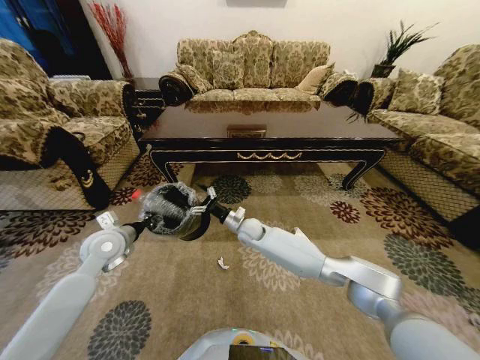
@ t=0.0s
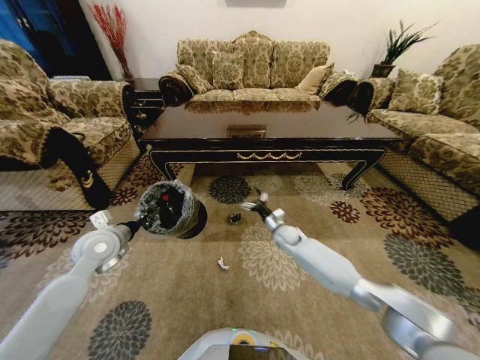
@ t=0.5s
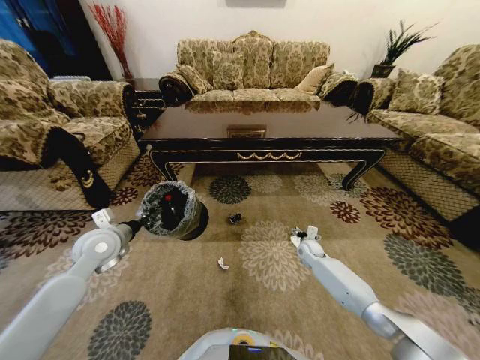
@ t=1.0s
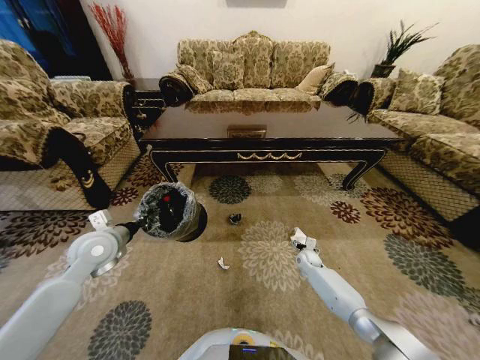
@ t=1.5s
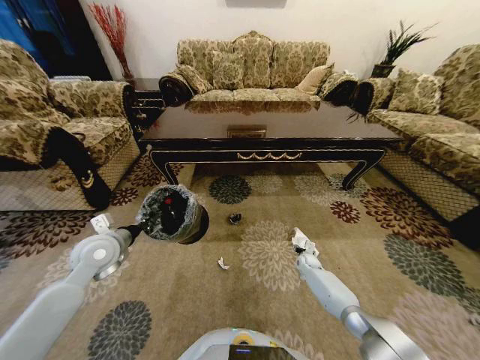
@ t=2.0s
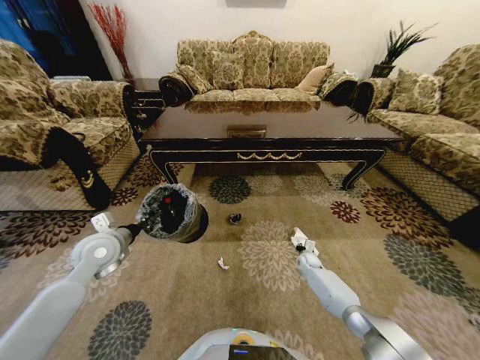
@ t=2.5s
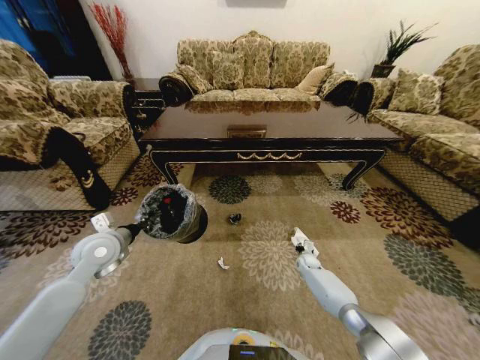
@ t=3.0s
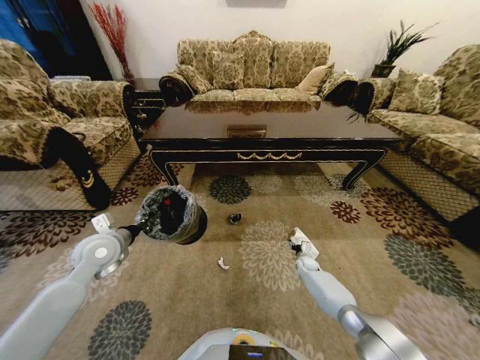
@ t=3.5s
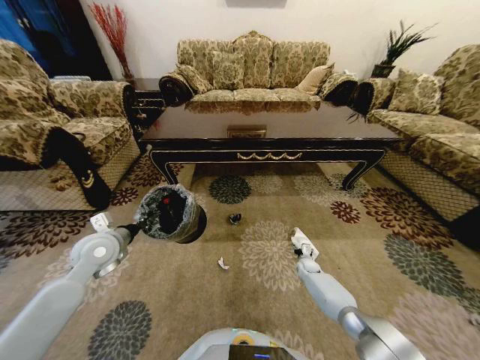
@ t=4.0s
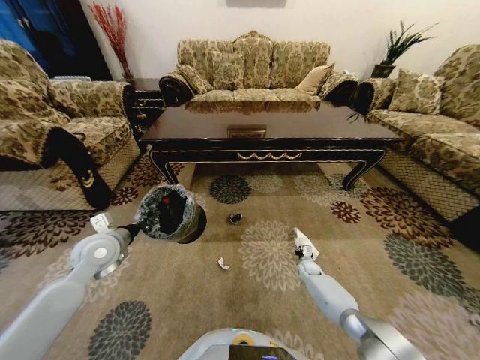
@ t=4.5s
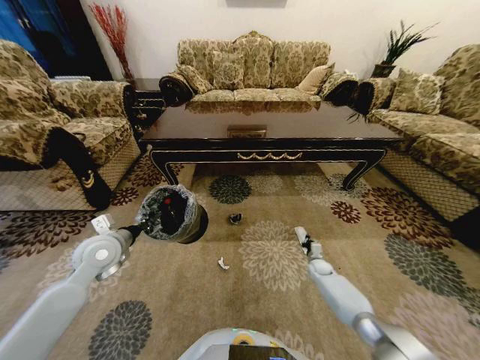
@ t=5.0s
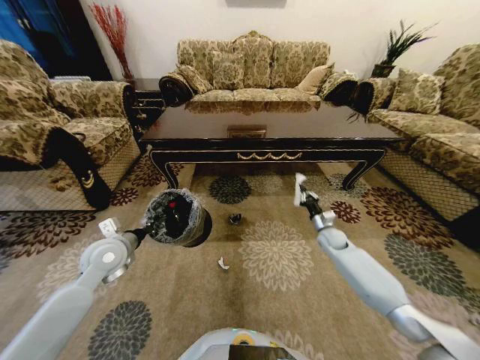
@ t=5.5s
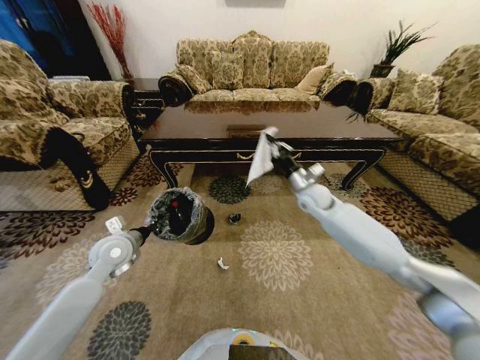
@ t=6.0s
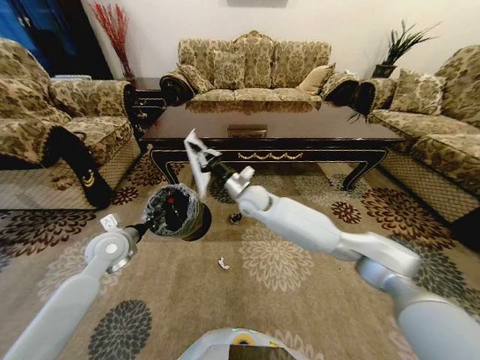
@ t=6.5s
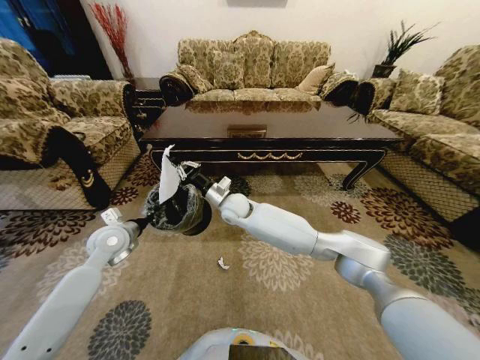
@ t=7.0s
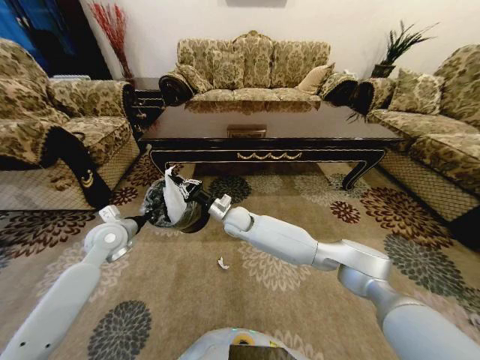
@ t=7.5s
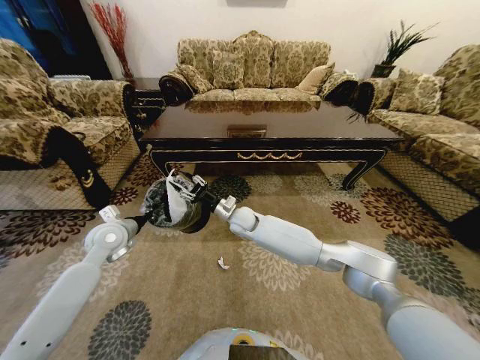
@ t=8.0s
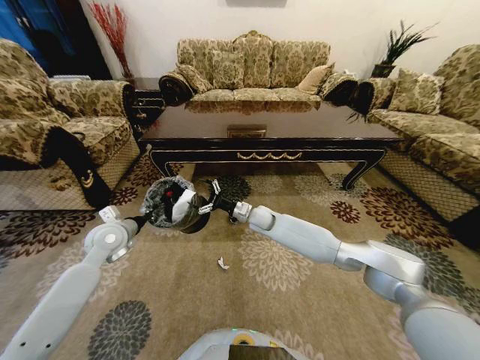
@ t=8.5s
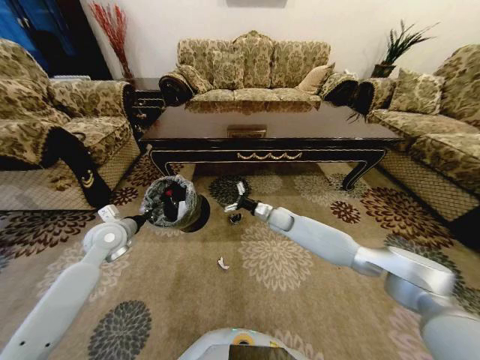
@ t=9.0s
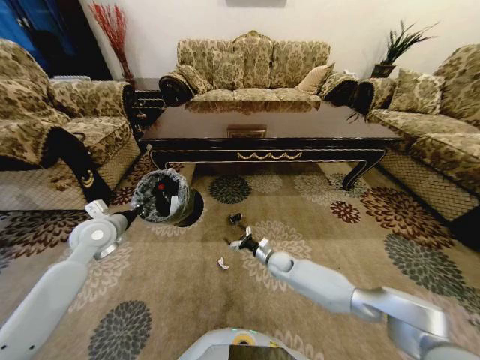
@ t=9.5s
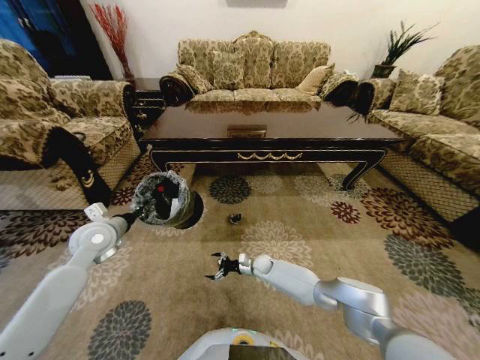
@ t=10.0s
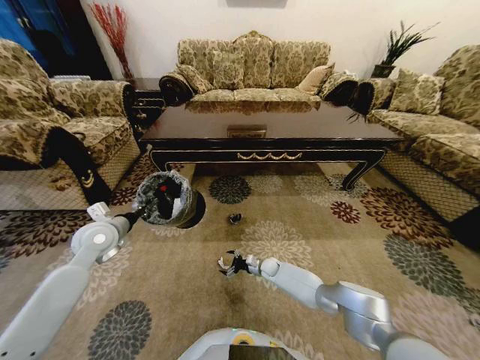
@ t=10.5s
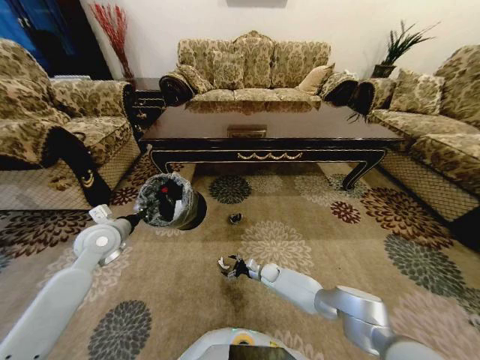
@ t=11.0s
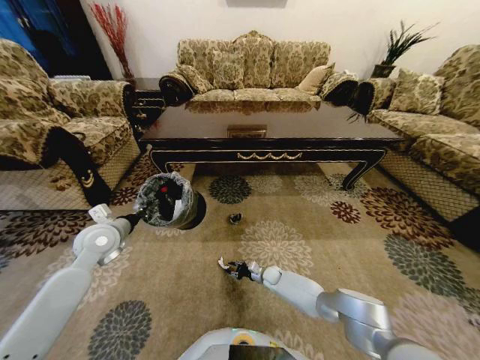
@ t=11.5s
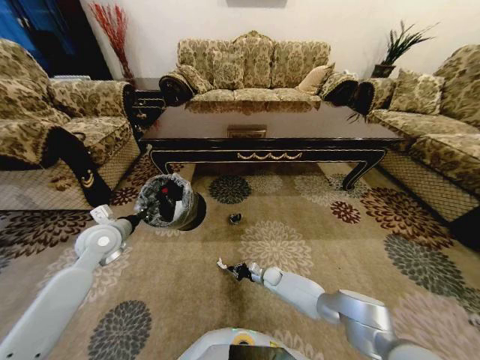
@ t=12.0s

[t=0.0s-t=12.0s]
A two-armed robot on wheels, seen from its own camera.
Task of the whole recording: Move to the front of the table and pick up the trash from the floor, then place it into the trash bin.
t=0.0s to t=2.0s: The right gripper shifts roughly 35 cm to the right and downward.
t=2.0s to t=4.0s: The right gripper closes, then opens again.
t=4.0s to t=6.0s: The right gripper heads upward, covering roughly 40 cm, and closes its fingers.
t=6.0s to t=8.0s: The right gripper heads to the left, covering approximately 25 cm, and opens.
t=8.0s to t=10.0s: The right gripper shifts roughly 25 cm downward, and opens.
t=10.0s to t=12.0s: The right gripper travels downward and to the right by about 10 cm, and closes its fingers.

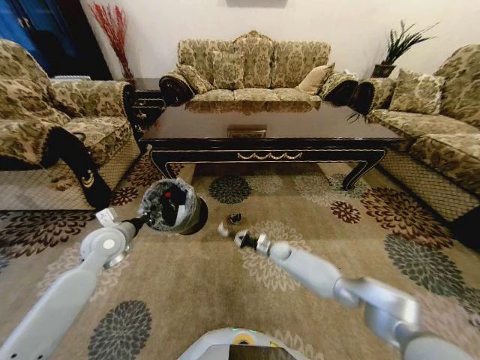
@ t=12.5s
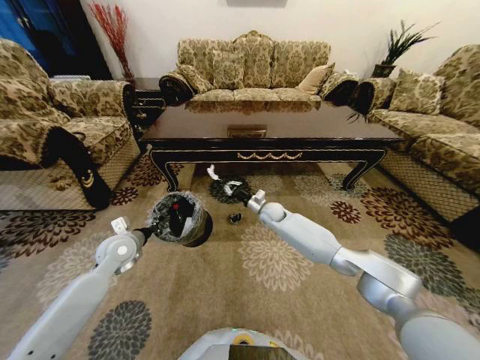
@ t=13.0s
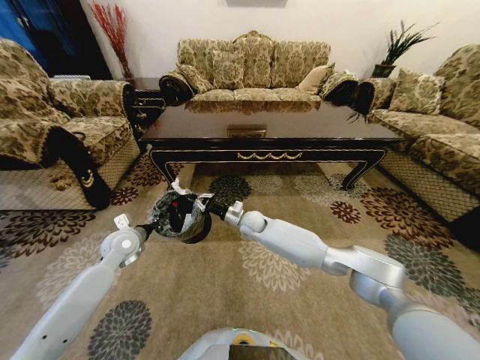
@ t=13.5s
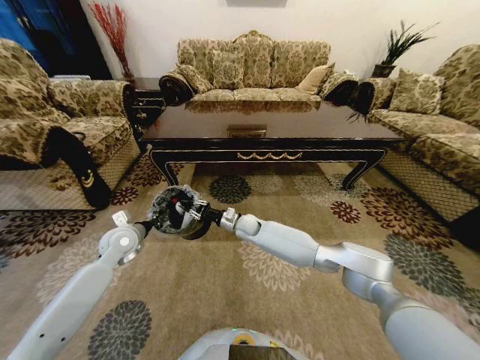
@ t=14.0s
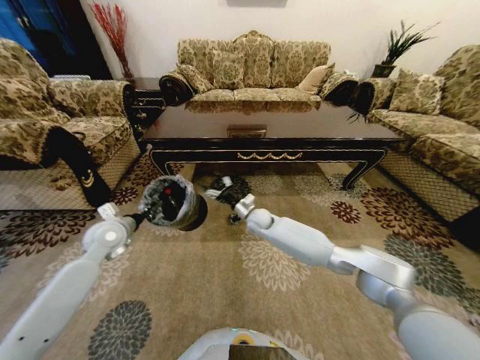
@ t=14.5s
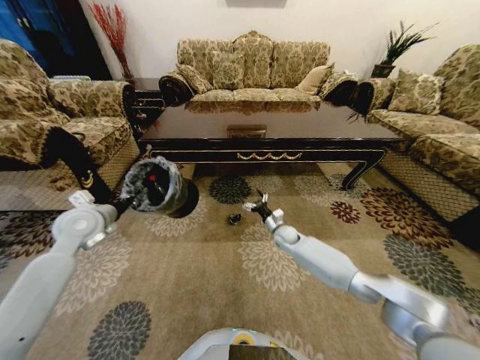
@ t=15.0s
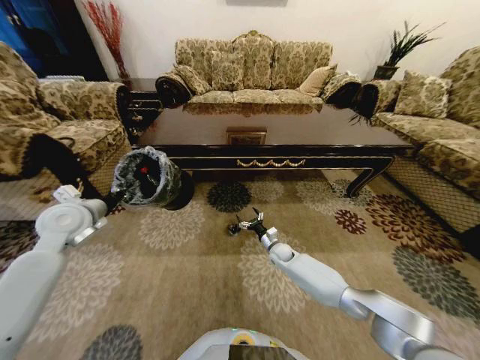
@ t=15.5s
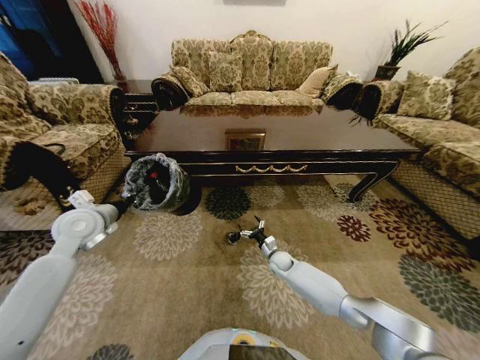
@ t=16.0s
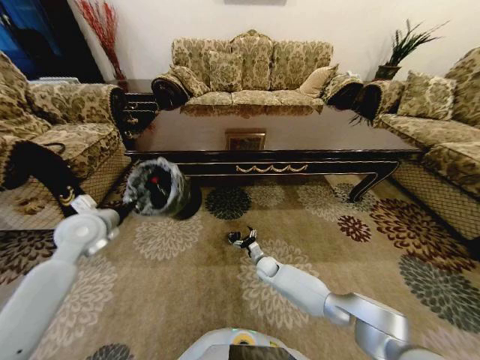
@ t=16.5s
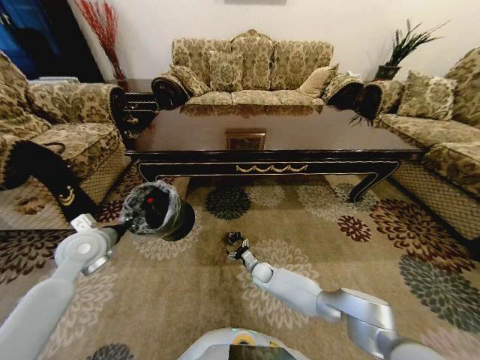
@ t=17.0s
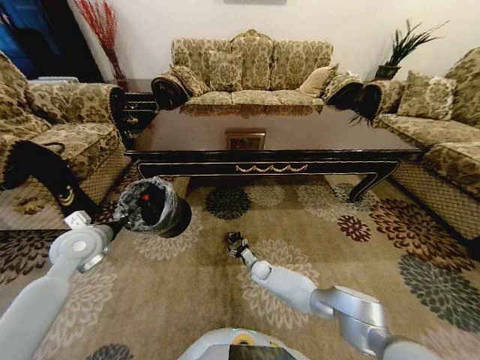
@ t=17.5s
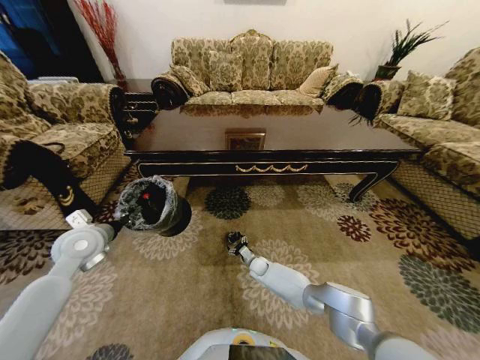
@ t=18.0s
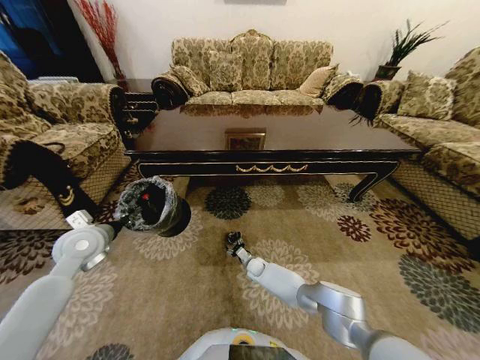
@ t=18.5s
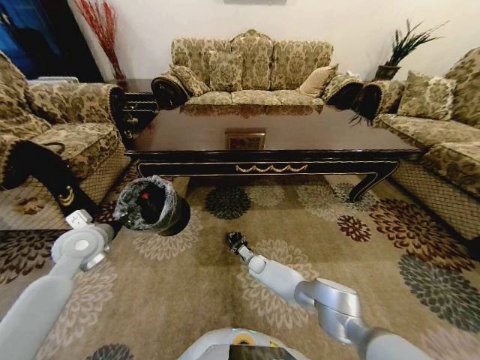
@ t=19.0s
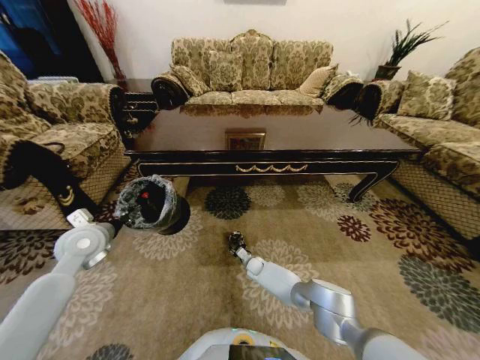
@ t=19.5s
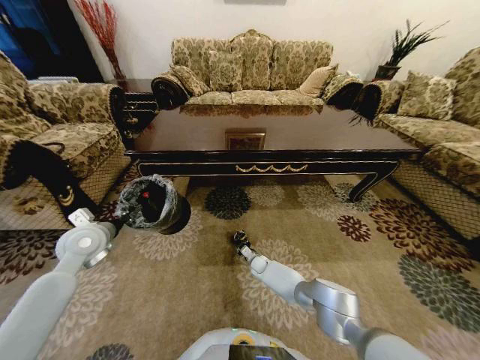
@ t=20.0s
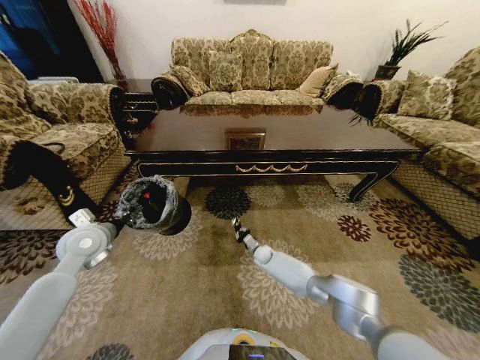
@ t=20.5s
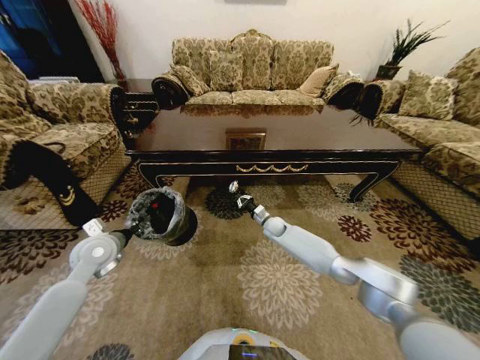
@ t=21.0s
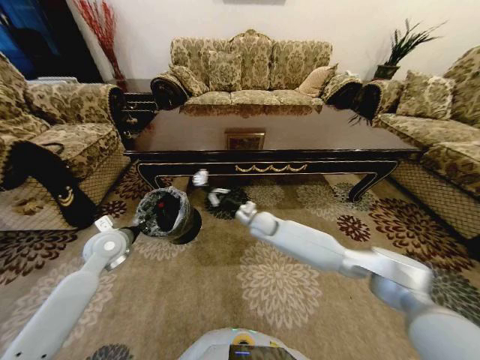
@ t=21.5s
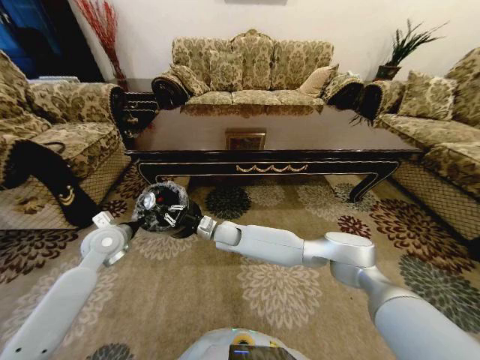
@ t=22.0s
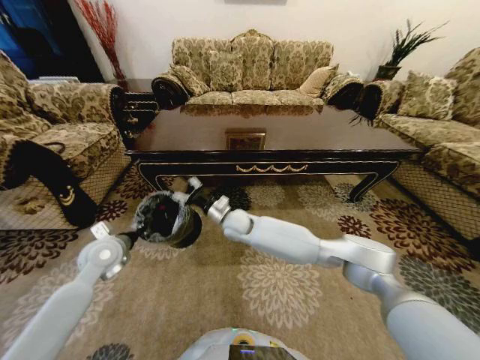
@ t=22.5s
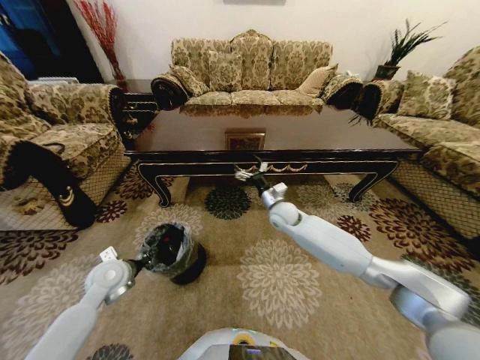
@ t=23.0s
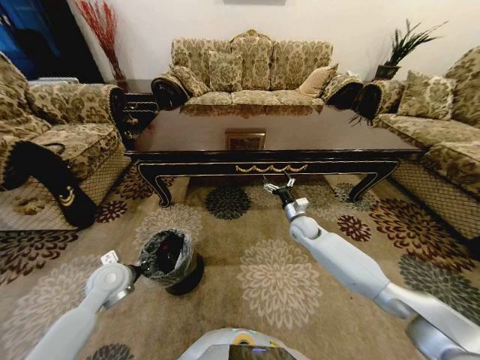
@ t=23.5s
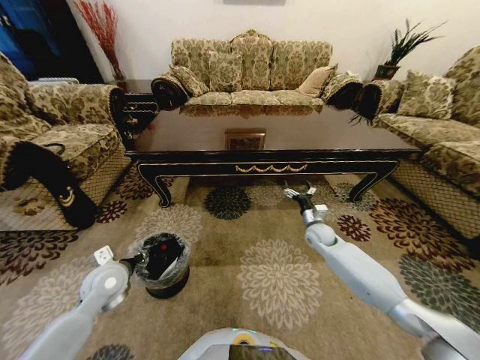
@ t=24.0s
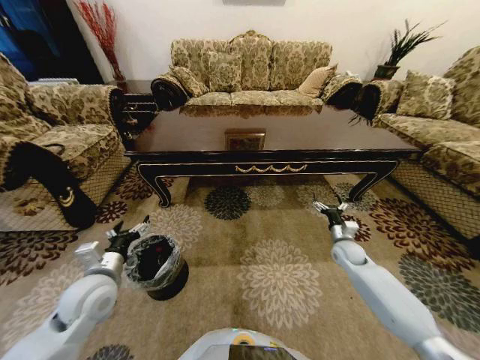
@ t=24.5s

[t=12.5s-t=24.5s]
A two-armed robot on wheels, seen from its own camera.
Task of the whole recording: Move to the front of the table and pick up the trash from the floor, then place it into the trash bin.
t=12.5s to t=14.5s: The right gripper moves upward and to the left, some 20 cm, and opens up.
t=14.5s to t=16.5s: The right gripper shifts about 20 cm downward and backward; the left gripper is displaced upward by some 5 cm.
t=16.5s to t=18.5s: The right gripper changes place by about 5 cm.
t=18.5s to t=20.5s: The right gripper ends up approximately 5 cm from where it was, and closes.
t=20.5s to t=22.5s: The left gripper moves downward, approximately 5 cm, while the right gripper moves upward and to the left, approximately 30 cm, and opens its fingers.
t=22.5s to t=24.5s: The right gripper is displaced to the right by approximately 40 cm, and opens, while the left gripper travels backward by approximately 10 cm, and opens.

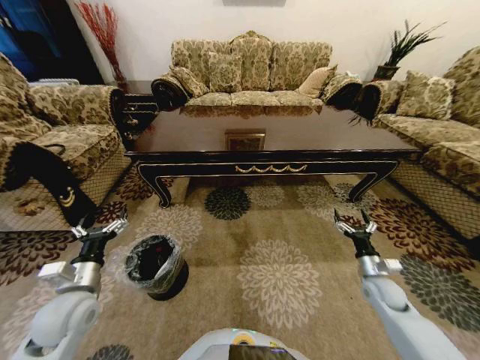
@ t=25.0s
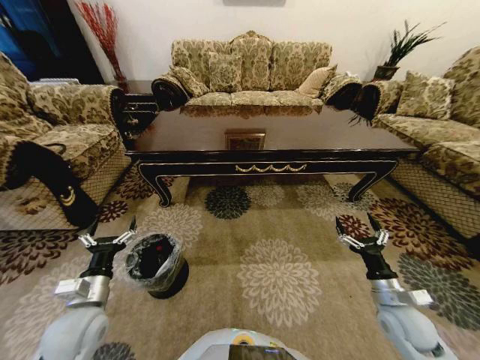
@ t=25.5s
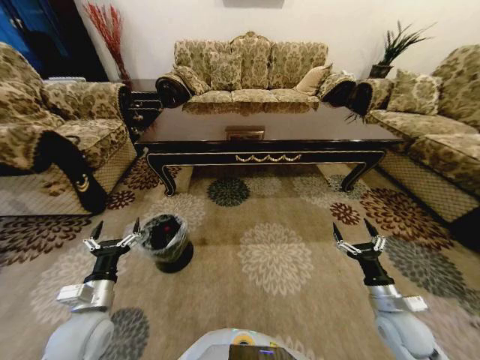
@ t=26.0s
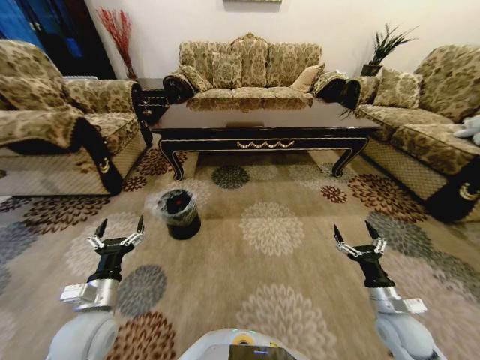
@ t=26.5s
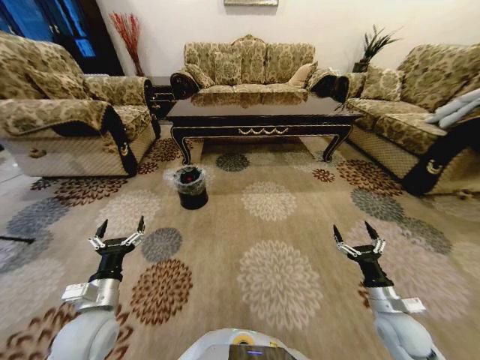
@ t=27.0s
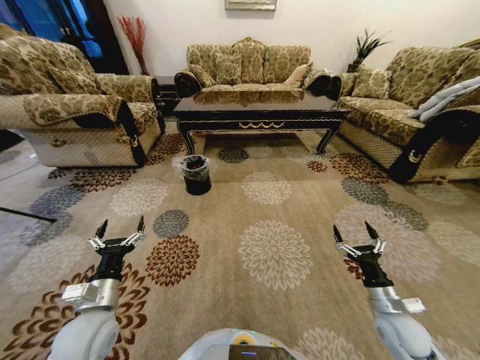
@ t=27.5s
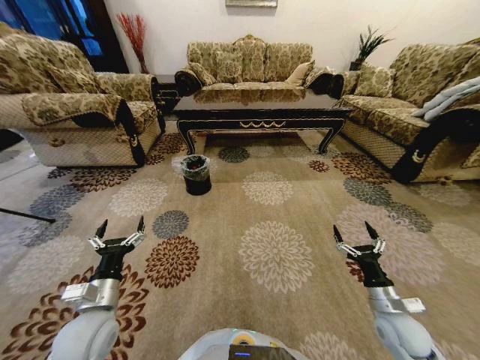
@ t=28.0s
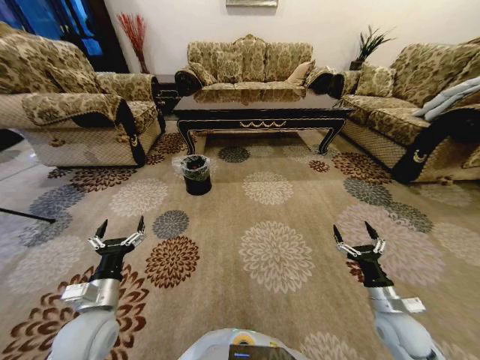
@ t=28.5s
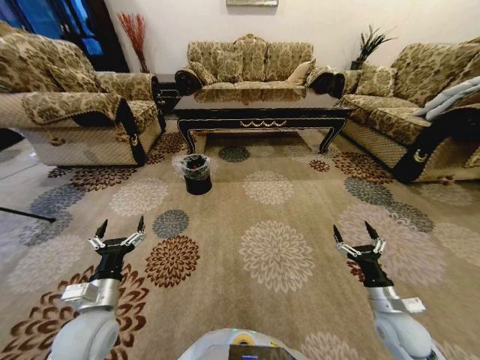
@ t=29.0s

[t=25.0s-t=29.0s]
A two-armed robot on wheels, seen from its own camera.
Task of the whole recording: Move to the front of the table and pick up the trash from the floor, then place it into the trash bin.
t=25.0s to t=27.0s: The left gripper heads to the right, covering some 5 cm. Meanwhile the right gripper shifts approximately 10 cm backward.
